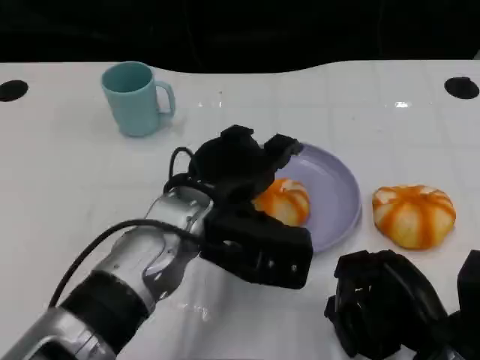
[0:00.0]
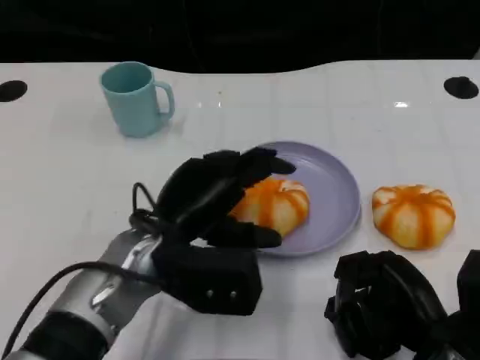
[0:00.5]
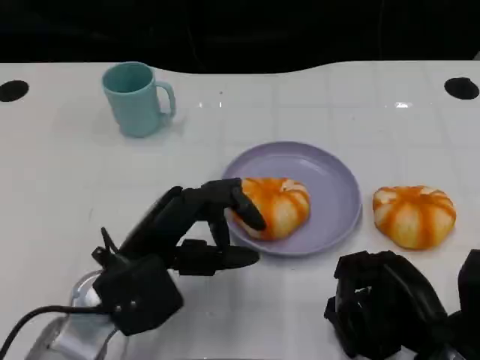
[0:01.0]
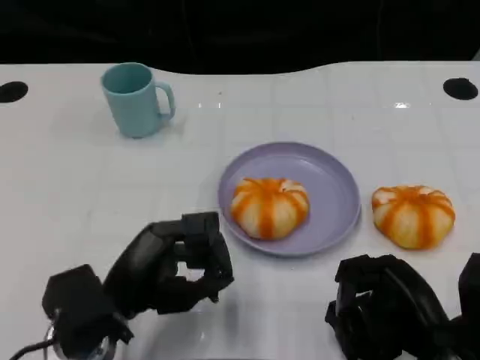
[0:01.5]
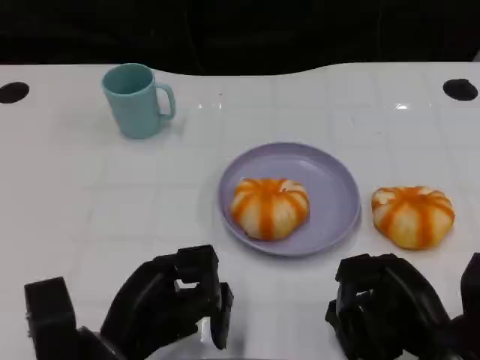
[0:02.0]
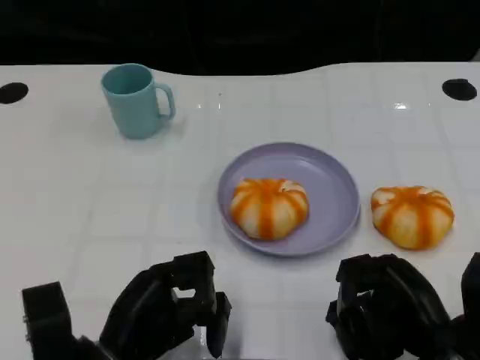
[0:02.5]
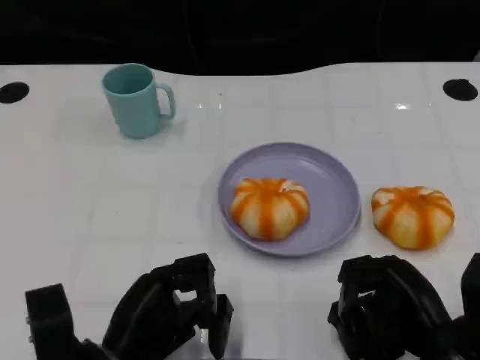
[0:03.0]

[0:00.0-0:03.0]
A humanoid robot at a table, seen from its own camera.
Task of the whole recording: Grasp the bread from the table and place it into the plate.
0:00.0 to 0:01.5: The left hand shifts approximately 15 cm to the left, backward and downward.

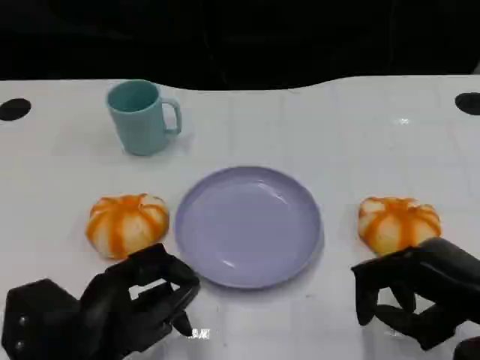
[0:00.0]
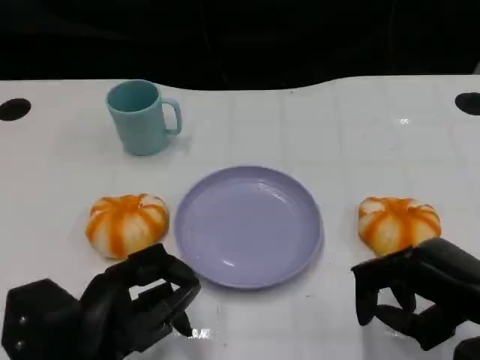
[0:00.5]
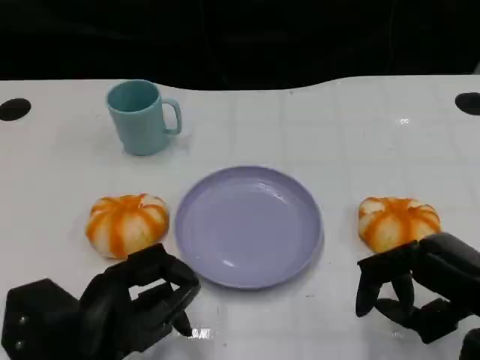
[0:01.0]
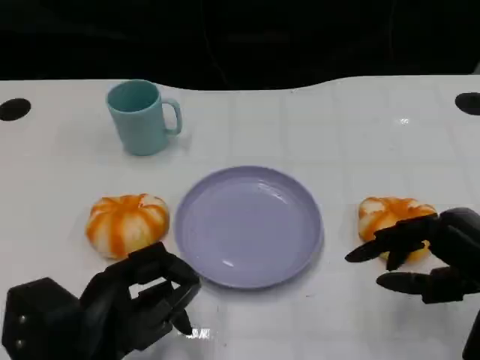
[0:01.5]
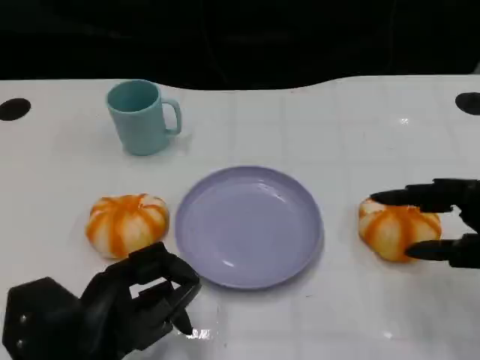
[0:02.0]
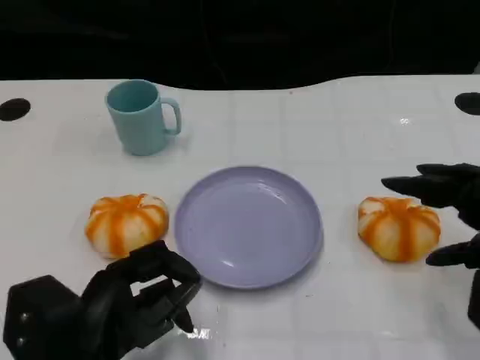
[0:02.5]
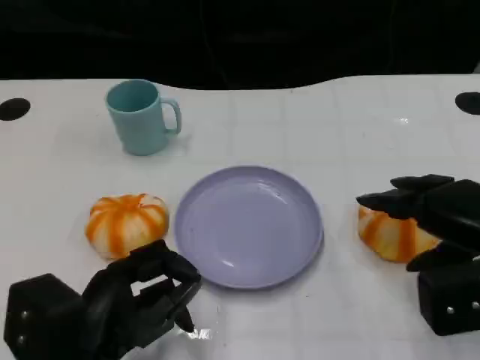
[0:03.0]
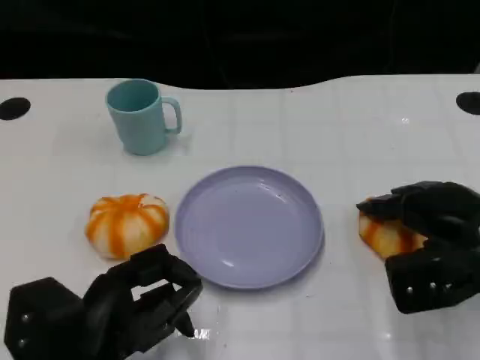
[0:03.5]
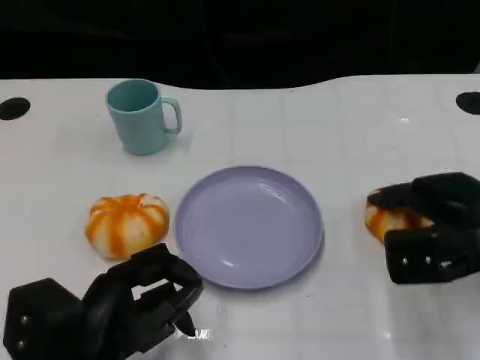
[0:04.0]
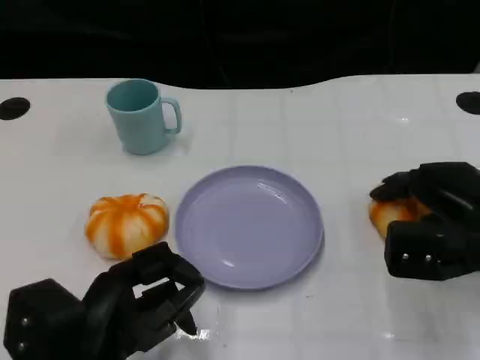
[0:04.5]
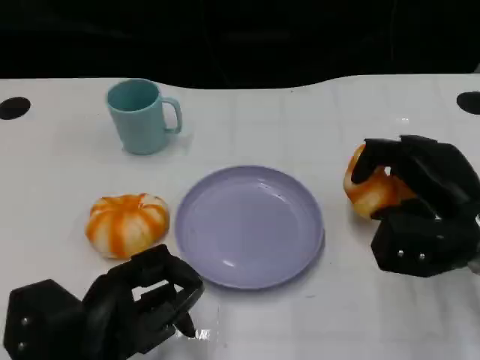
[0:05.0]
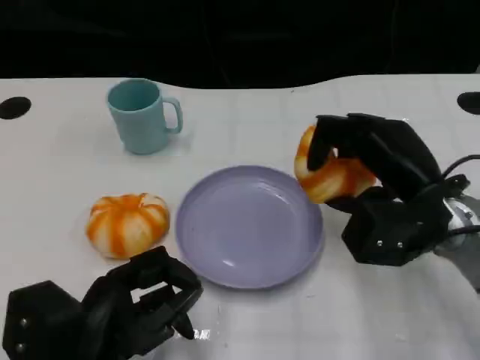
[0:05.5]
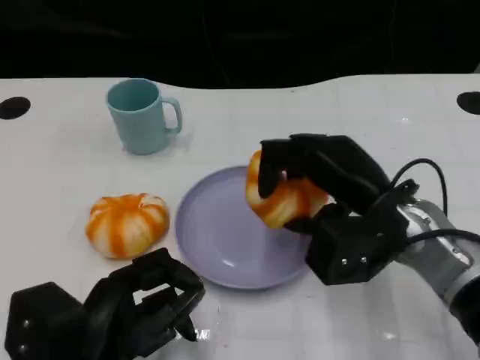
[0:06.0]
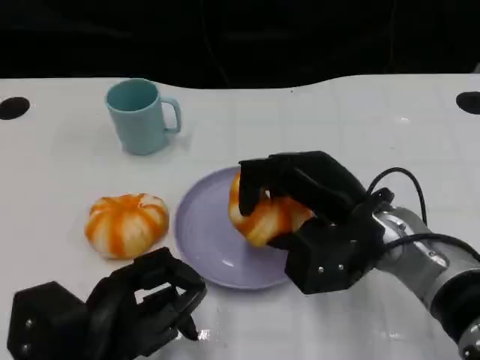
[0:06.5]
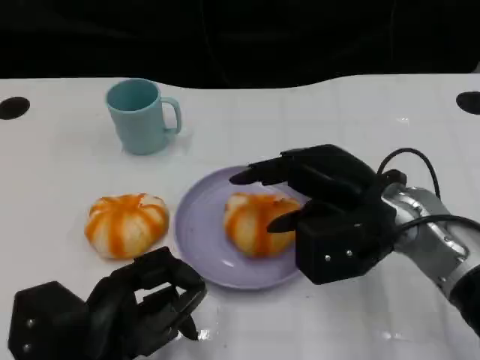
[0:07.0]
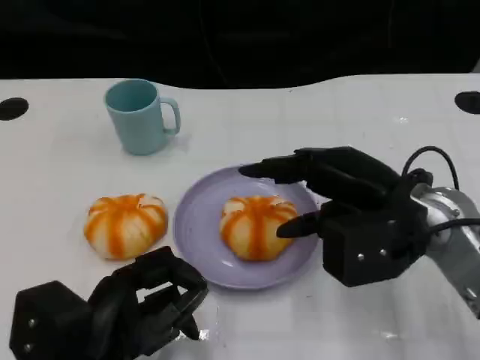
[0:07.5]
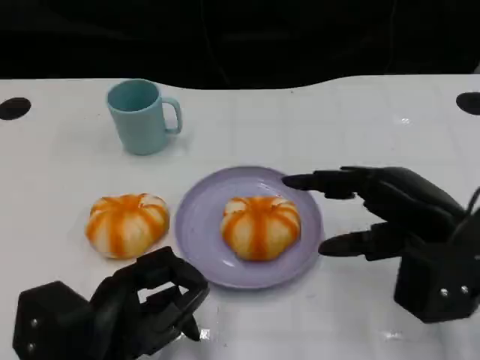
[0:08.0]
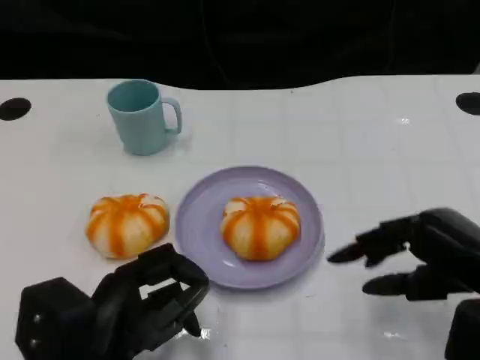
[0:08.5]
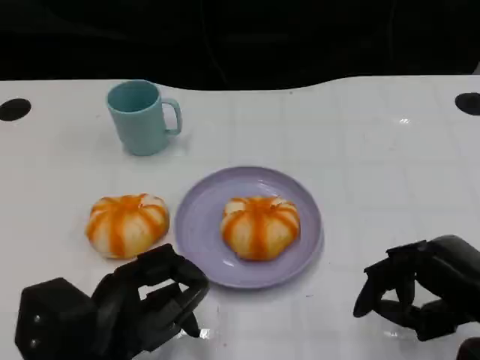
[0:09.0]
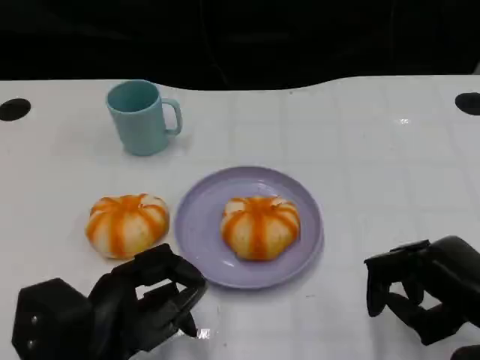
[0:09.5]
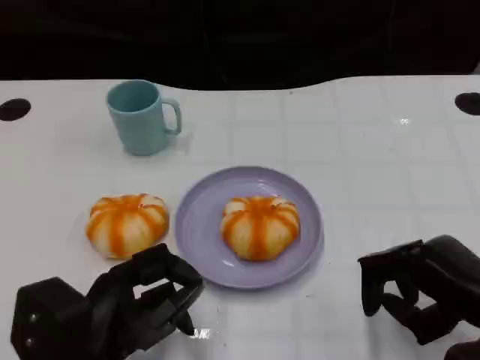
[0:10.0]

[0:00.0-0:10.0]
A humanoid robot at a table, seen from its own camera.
Task of the whole recording: Grasp the bread from the table and place it into the plate.
0:00.0 to 0:02.0: The right hand changes place by about 5 cm.
0:02.0 to 0:04.0: The right hand goes some 5 cm forward.
0:04.0 to 0:06.0: The right hand goes roughly 10 cm to the left.
0:06.0 to 0:08.0: The right hand goes some 10 cm to the right.
0:08.0 to 0:10.0: The right hand goes about 5 cm downward.

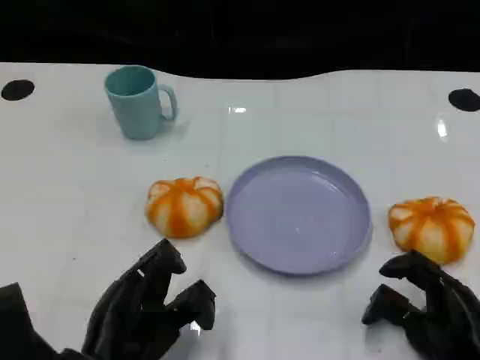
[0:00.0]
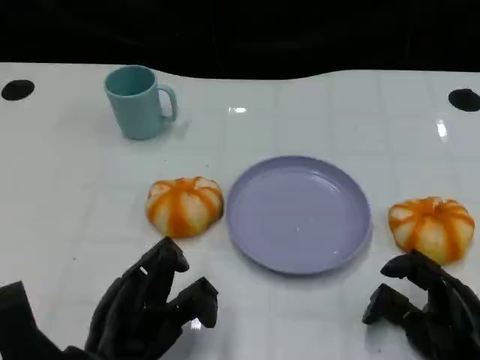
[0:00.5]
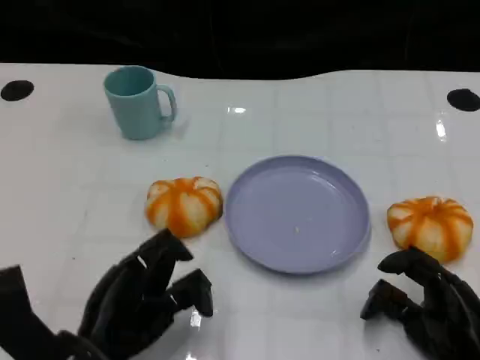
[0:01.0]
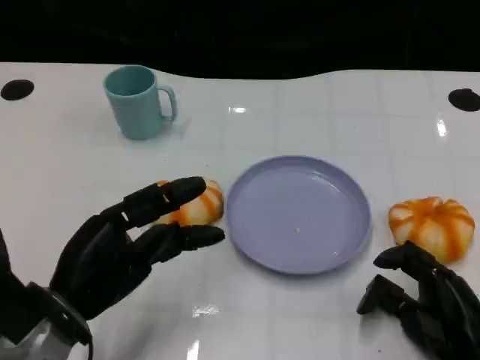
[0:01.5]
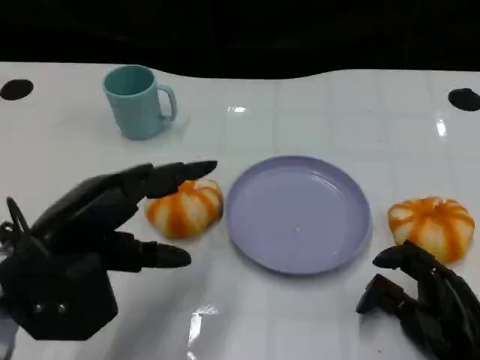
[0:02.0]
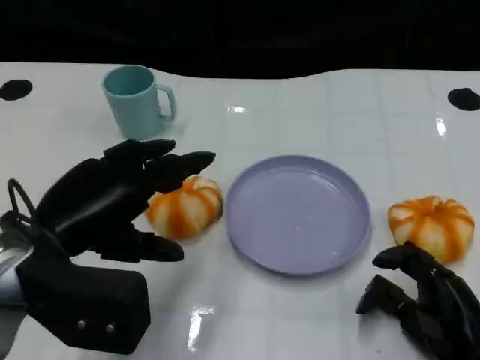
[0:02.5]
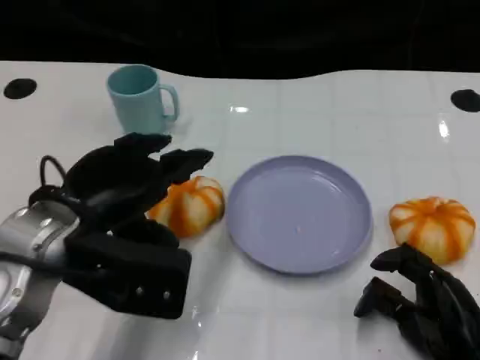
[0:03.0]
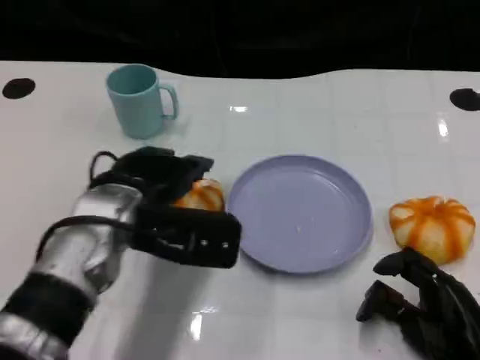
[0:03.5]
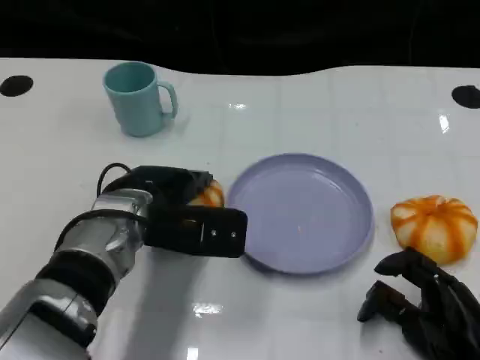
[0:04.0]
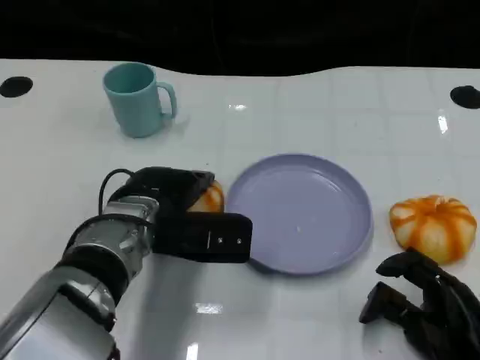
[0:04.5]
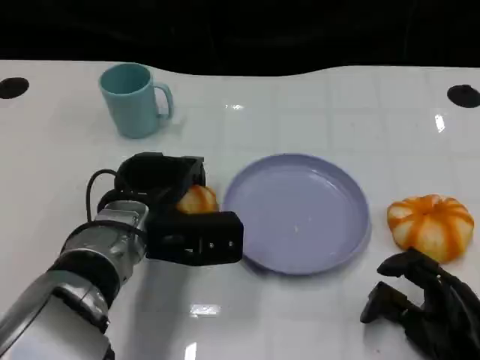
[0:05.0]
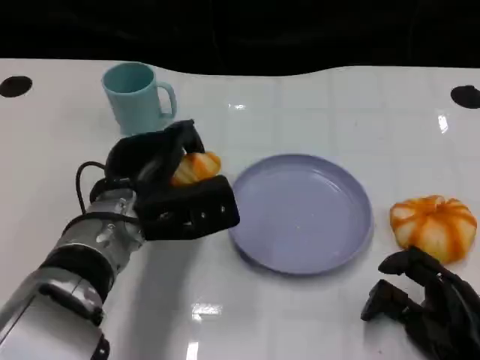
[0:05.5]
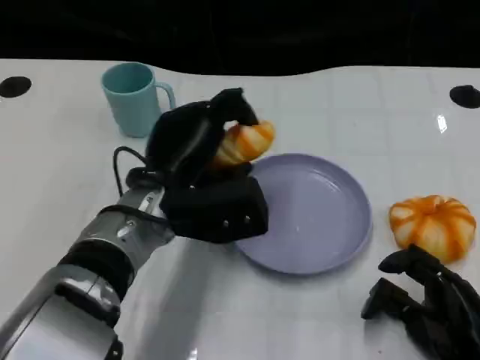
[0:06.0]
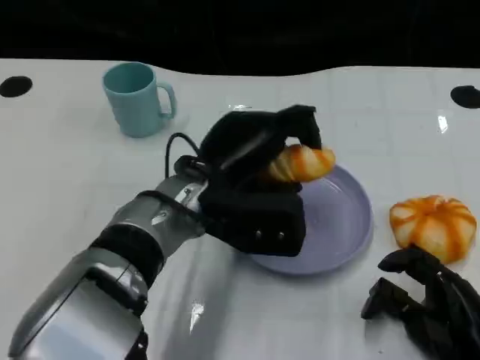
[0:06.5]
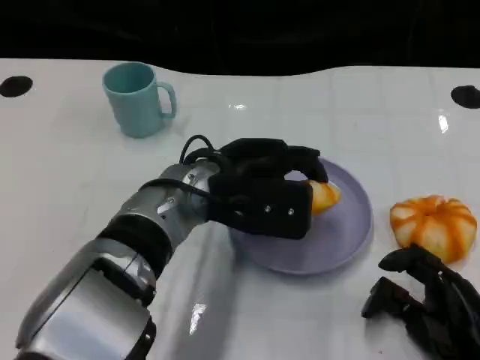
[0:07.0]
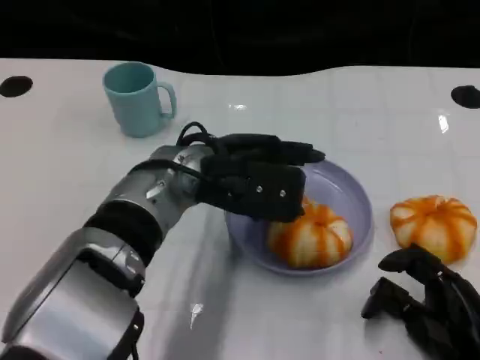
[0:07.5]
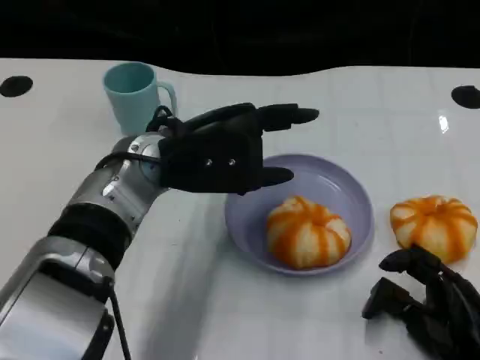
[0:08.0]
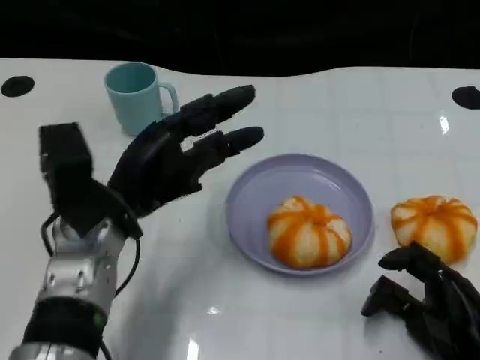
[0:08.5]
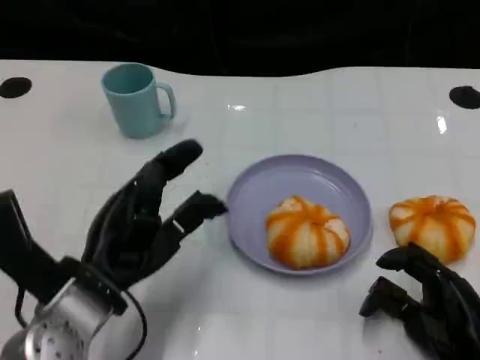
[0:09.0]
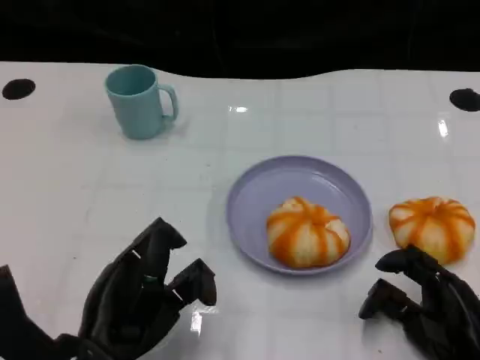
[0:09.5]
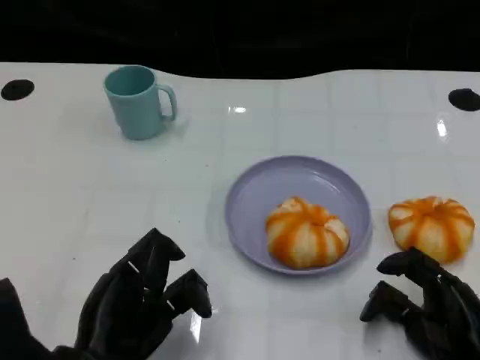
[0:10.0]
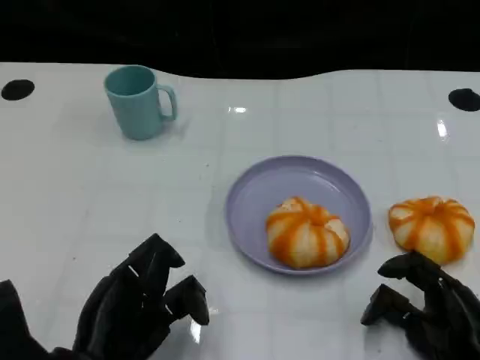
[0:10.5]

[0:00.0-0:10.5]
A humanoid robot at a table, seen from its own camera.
Task of the whole recording: Grasp the bread from the table and place it into the plate.
0:00.0 to 0:02.0: The left hand moves upward and forward, some 10 cm.
0:02.0 to 0:04.0: The left hand is displaced to the right, forward and downward by some 15 cm.
0:04.0 to 0:06.5: The left hand moves to the right, roughly 5 cm.
0:06.5 to 0:08.5: The left hand heads to the left, covering approximately 10 cm.
0:08.5 to 0:10.5: The left hand travels backward and downward by some 15 cm.

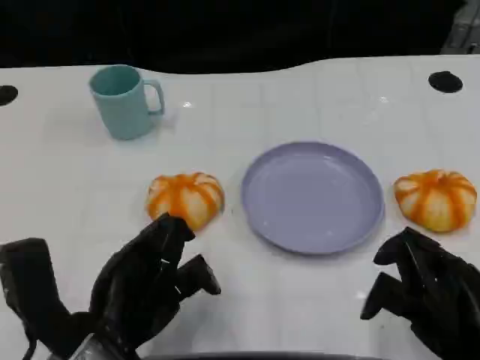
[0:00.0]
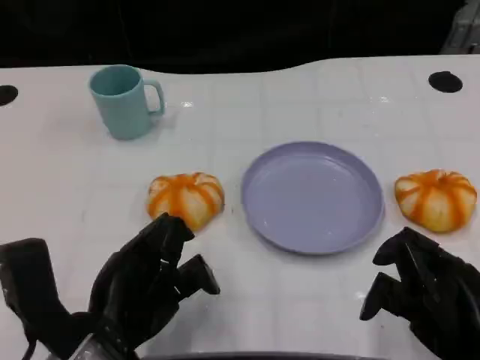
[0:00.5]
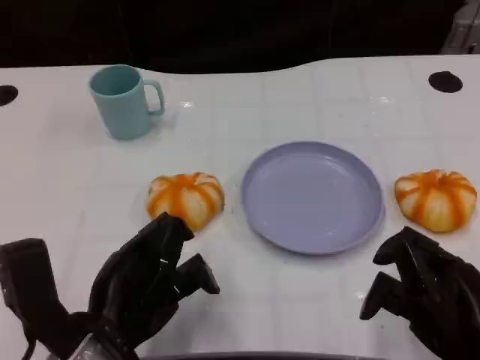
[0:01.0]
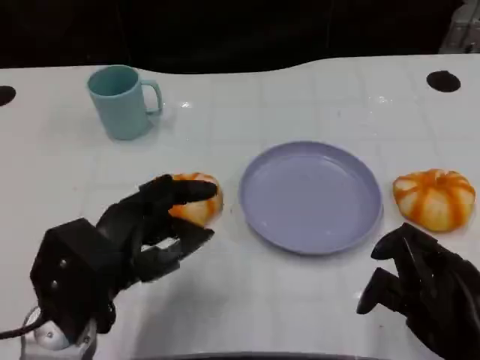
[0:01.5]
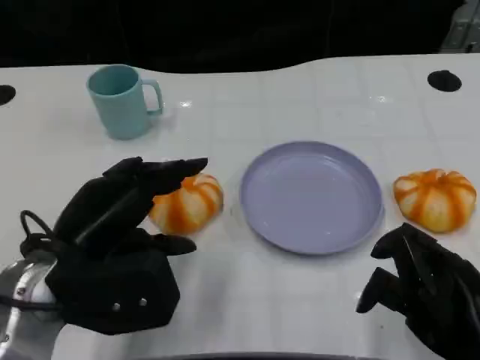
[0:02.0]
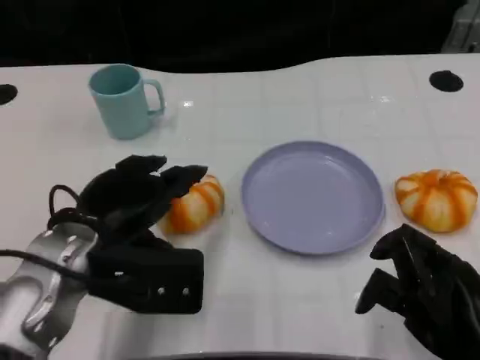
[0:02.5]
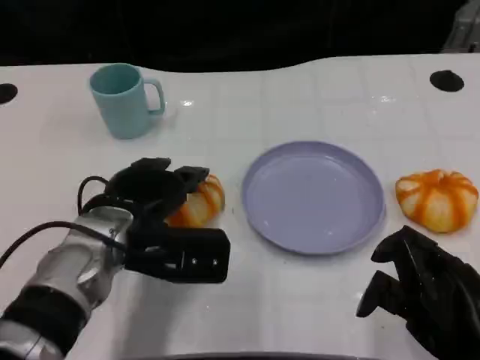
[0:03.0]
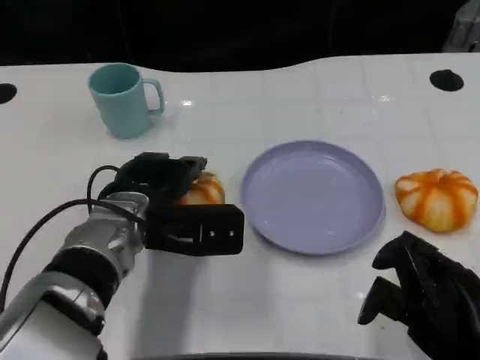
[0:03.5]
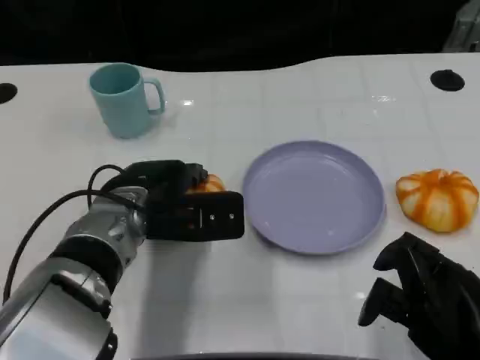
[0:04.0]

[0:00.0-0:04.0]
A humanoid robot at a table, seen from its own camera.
Task of the whole recording: Grasp the bread from the table and place it into the plate.
0:00.0 to 0:02.0: The left hand moves approximately 5 cm.
0:02.0 to 0:04.0: The left hand travels forward and to the right by approximately 10 cm.
